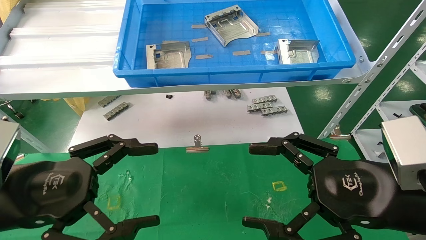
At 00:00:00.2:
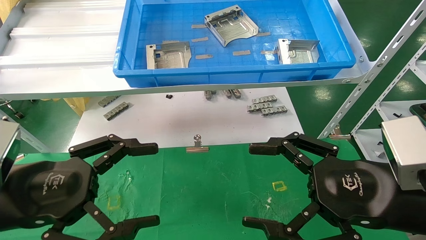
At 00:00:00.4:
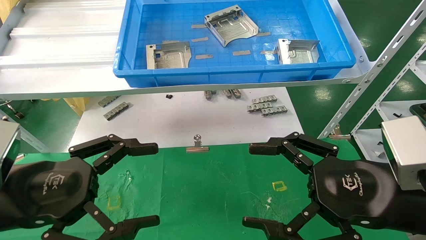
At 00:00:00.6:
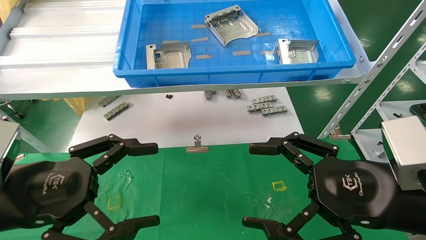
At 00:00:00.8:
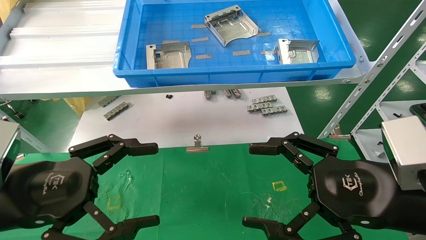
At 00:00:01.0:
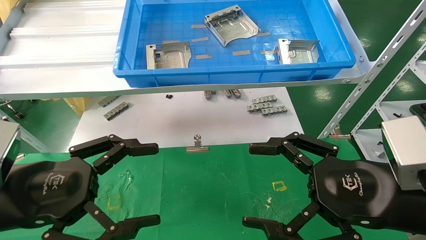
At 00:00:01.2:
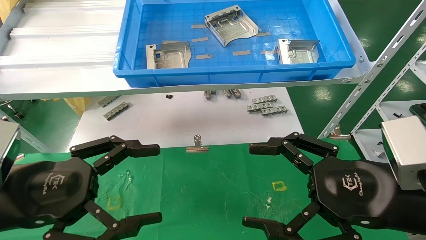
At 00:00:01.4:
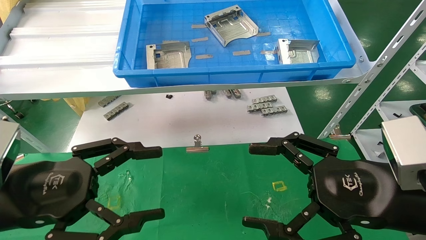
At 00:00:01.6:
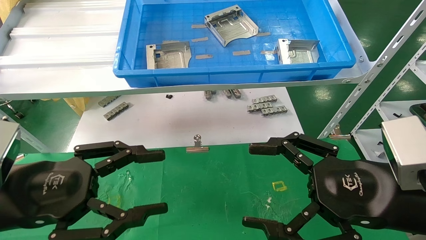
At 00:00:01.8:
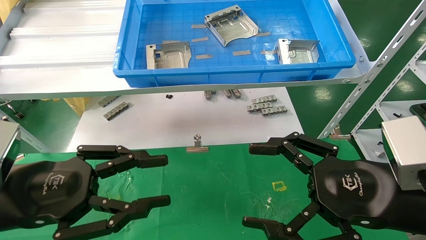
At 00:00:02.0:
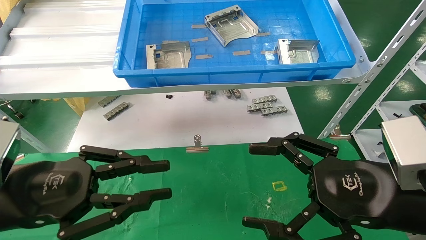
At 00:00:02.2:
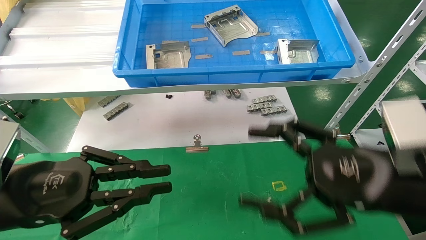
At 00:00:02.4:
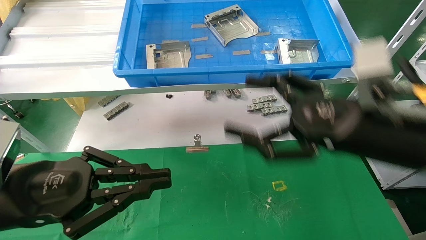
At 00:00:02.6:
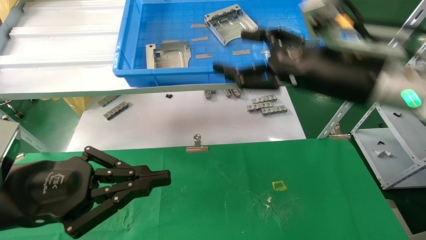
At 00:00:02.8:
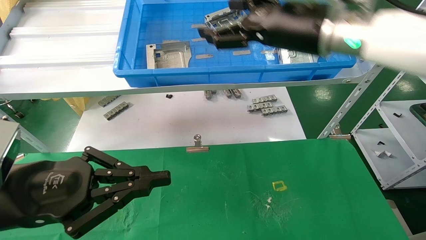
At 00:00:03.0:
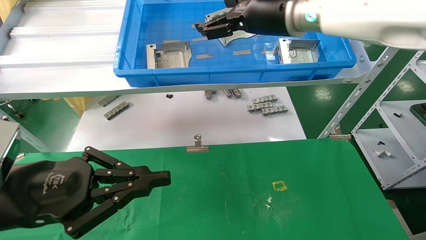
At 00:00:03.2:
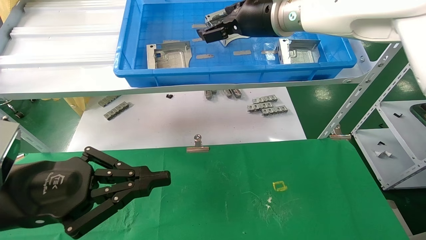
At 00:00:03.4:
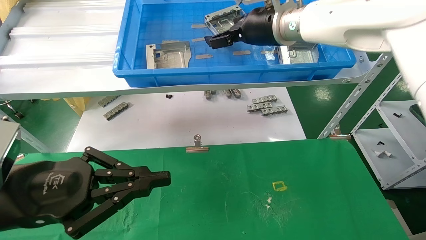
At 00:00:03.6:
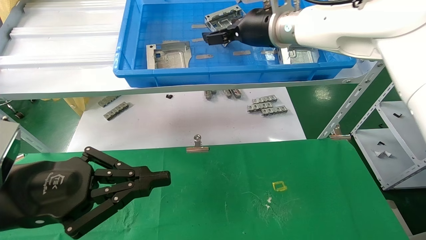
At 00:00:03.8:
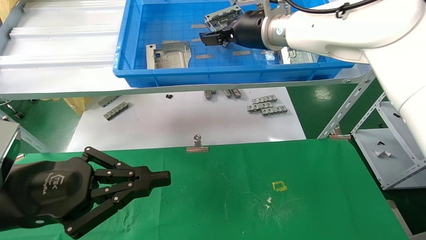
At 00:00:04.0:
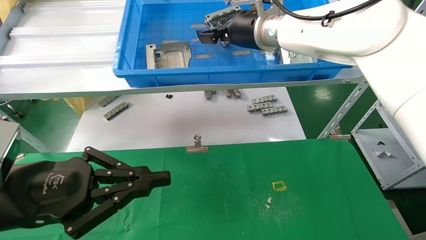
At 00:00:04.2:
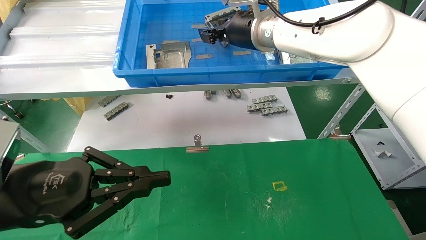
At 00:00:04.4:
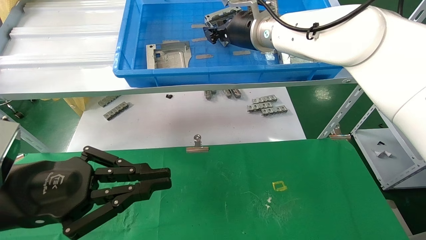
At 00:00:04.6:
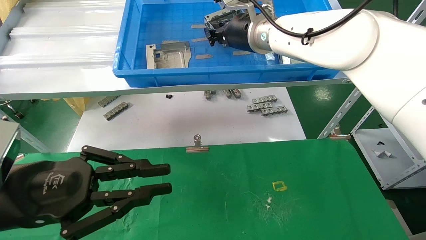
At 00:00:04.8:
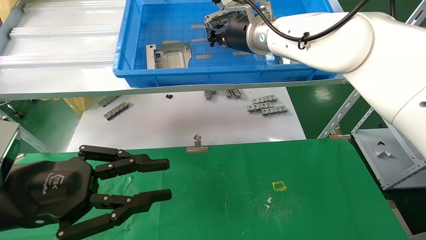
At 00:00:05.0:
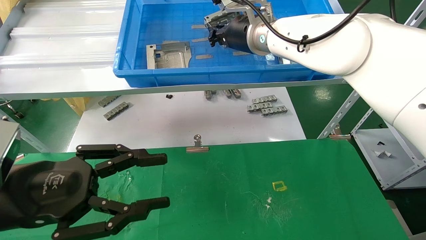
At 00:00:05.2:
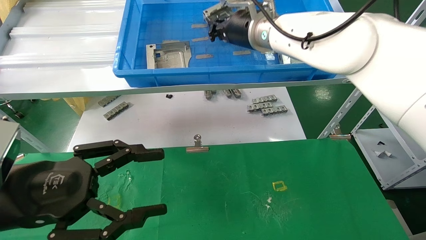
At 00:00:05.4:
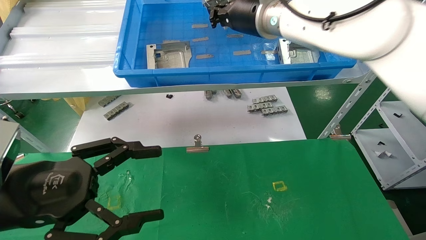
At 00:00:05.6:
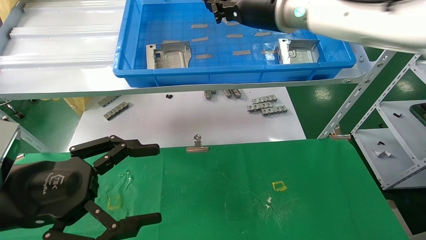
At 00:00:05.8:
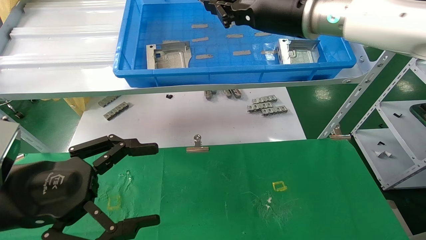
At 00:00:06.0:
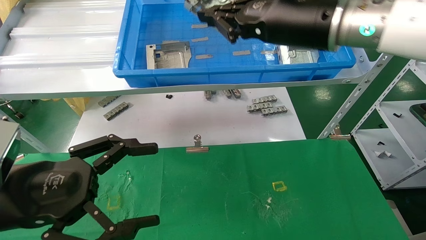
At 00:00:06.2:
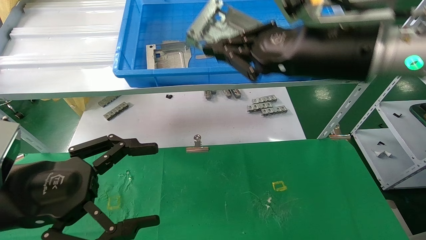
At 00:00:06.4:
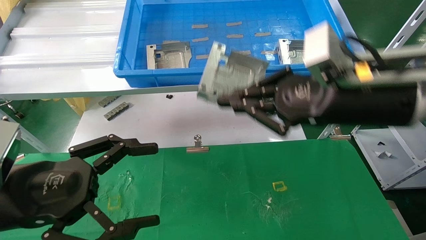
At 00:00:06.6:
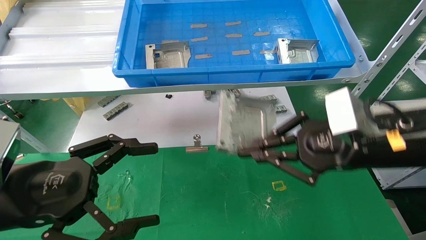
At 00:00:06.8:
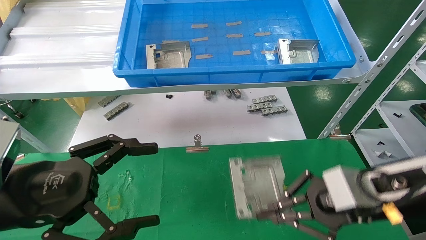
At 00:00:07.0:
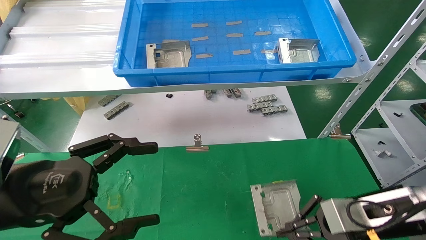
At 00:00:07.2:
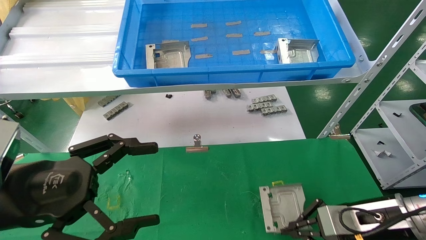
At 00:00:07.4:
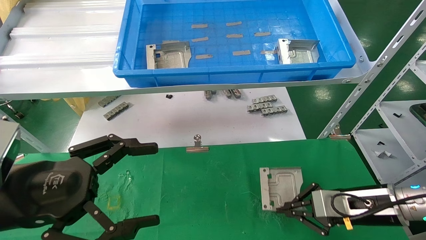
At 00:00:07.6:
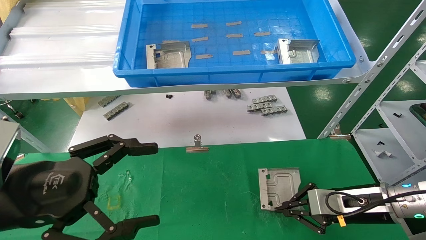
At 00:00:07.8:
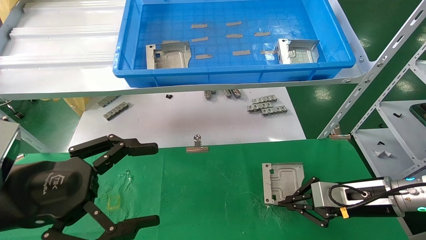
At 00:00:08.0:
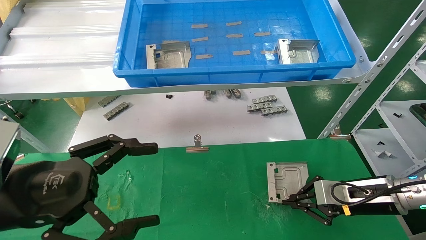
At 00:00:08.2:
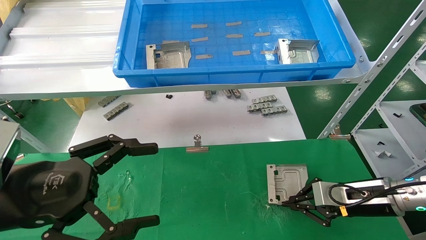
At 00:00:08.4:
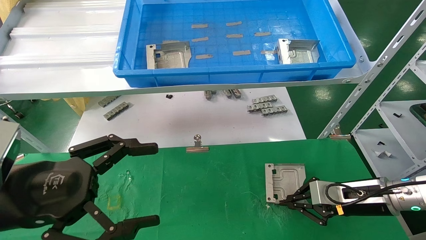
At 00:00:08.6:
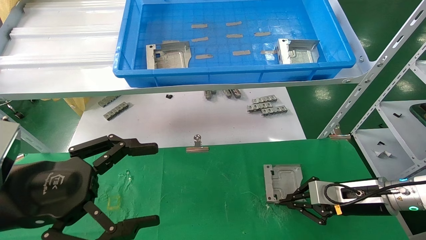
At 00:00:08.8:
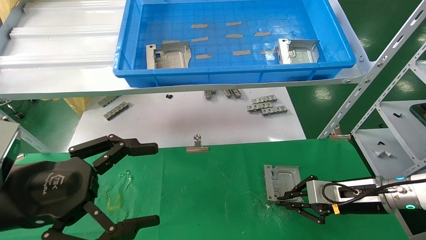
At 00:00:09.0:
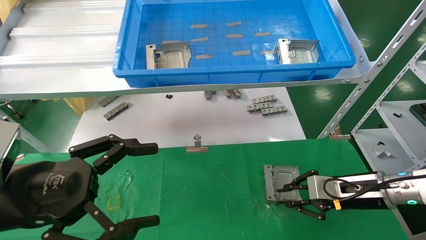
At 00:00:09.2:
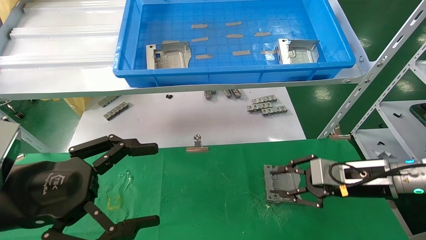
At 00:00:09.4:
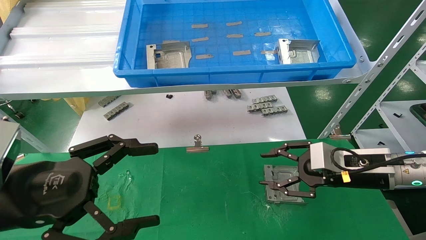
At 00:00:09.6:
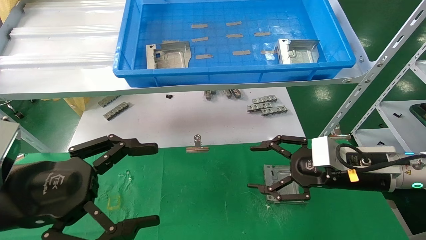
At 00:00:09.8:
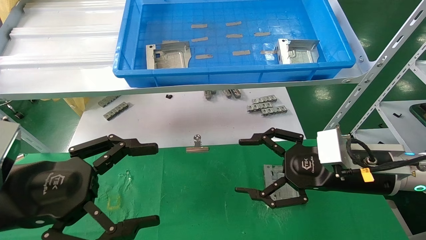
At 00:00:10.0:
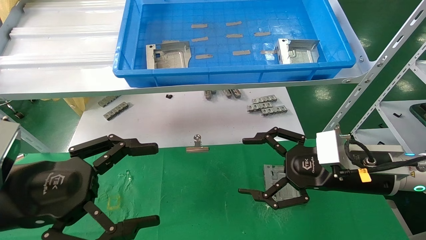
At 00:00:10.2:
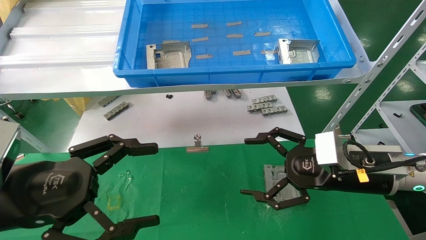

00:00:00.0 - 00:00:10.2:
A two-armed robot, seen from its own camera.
Task of the whole recording: use the mechanical arm to pick up the parts and place them on the table.
Step, 00:00:02.6 - 00:00:05.4: Pick up the hard drive bracket from the feeding area.
Step, 00:00:05.6 - 00:00:08.8: Place the hard drive bracket into the box.
00:00:00.0 - 00:00:01.4: Neither gripper changes place.
00:00:01.4 - 00:00:03.0: The left gripper closes up; the right gripper is displaced forward, upward and to the left by about 30 cm.
00:00:03.0 - 00:00:04.4: The right gripper shifts by some 5 cm, and closes its fingers.
00:00:04.4 - 00:00:05.8: The left gripper opens up. The right gripper goes some 10 cm backward and to the right, and closes.
00:00:05.8 - 00:00:07.2: The right gripper heads downward and to the right, covering roughly 35 cm.
00:00:07.2 - 00:00:08.8: The right gripper heads forward, covering approximately 5 cm.
00:00:08.8 - 00:00:10.2: The right gripper heads upward, to the left and backward, covering roughly 15 cm, and opens.

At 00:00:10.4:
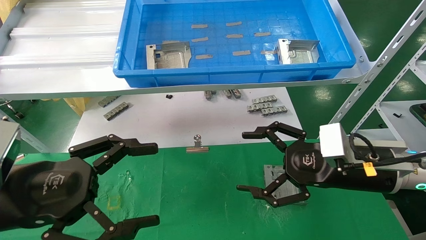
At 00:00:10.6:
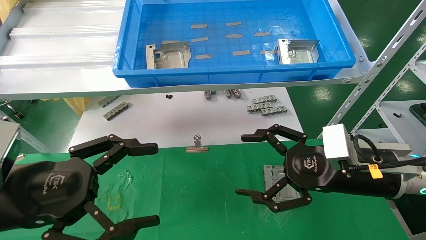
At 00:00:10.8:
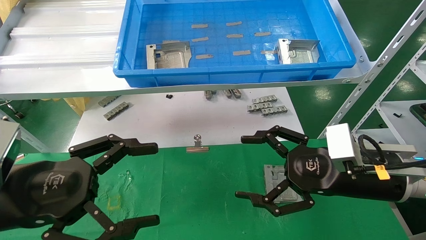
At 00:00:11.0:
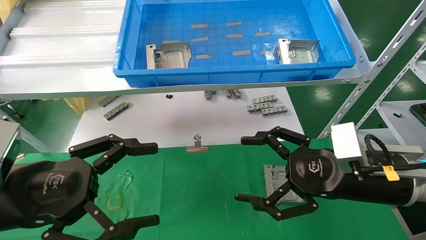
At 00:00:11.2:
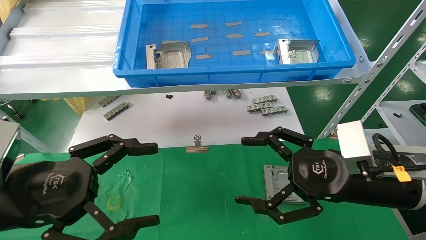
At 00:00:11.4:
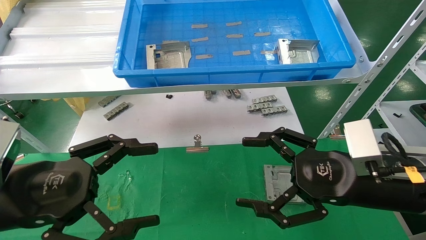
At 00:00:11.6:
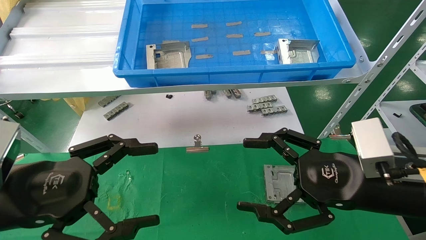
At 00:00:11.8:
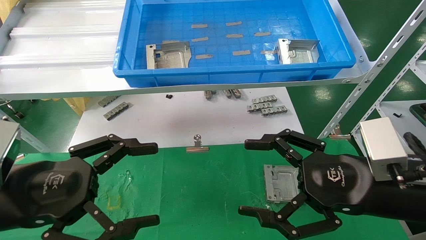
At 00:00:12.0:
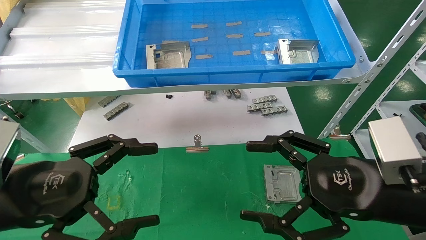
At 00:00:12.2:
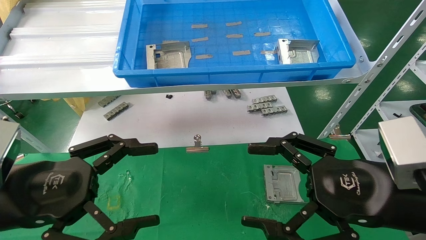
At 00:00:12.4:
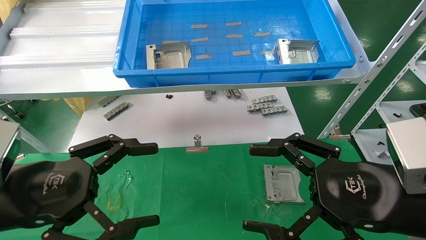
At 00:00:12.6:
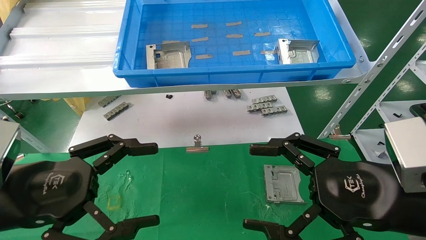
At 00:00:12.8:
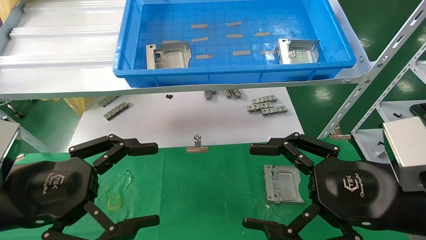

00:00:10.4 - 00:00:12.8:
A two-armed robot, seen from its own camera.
Task of the whole recording: use the mechanical arm to pick up the parts and place them on the table.
00:00:10.4 - 00:00:11.6: The right gripper is displaced backward by some 5 cm.
00:00:11.6 - 00:00:12.8: The grippers make only small movements.
